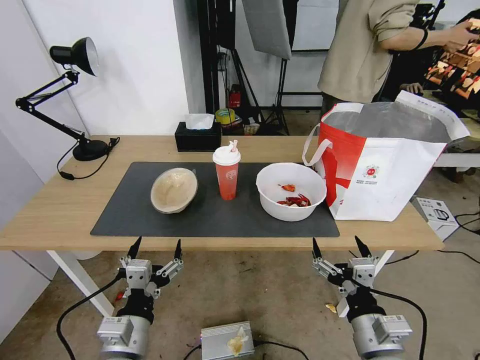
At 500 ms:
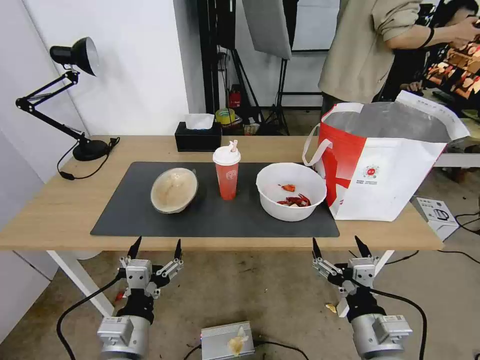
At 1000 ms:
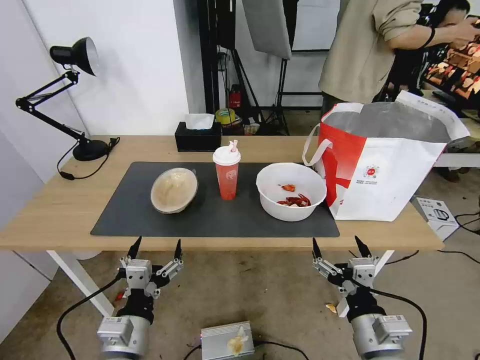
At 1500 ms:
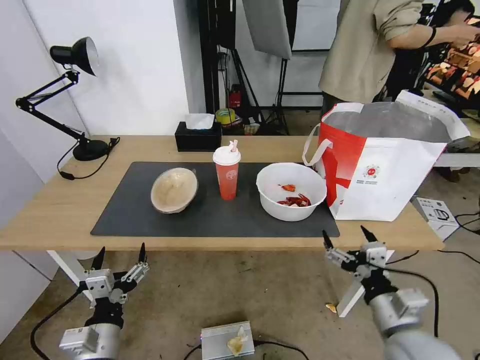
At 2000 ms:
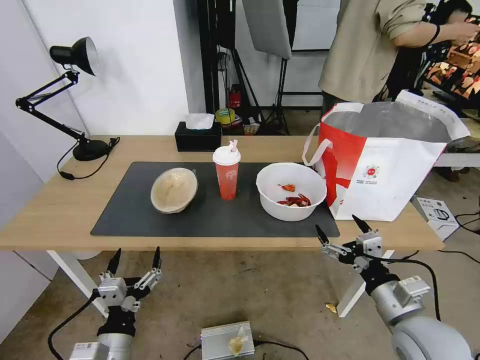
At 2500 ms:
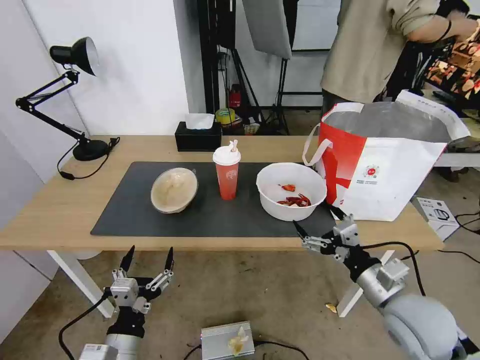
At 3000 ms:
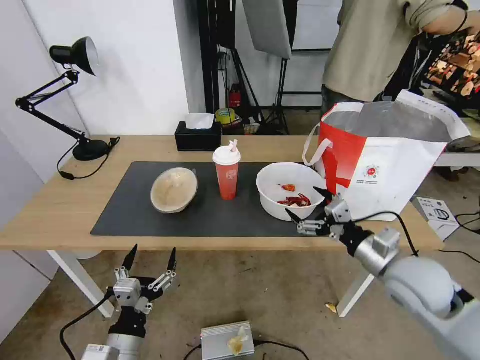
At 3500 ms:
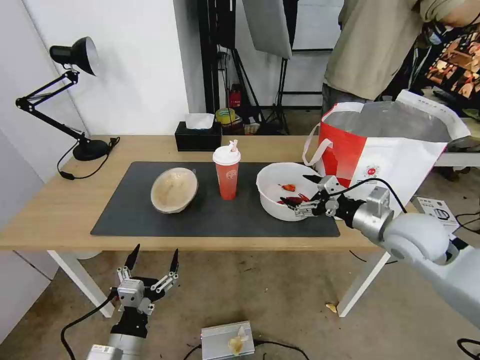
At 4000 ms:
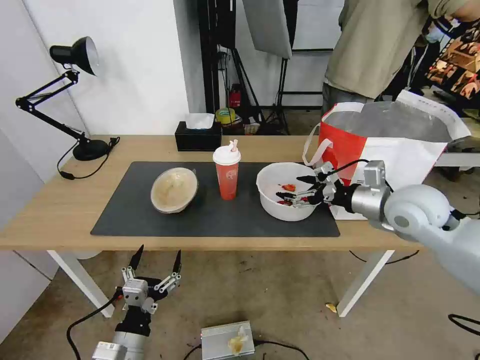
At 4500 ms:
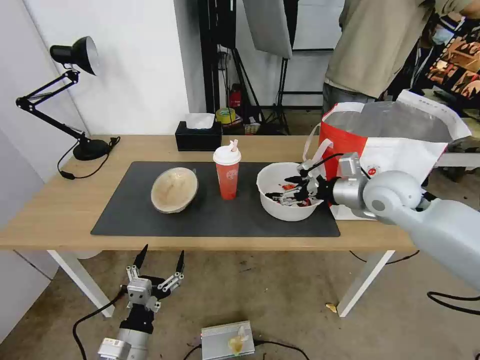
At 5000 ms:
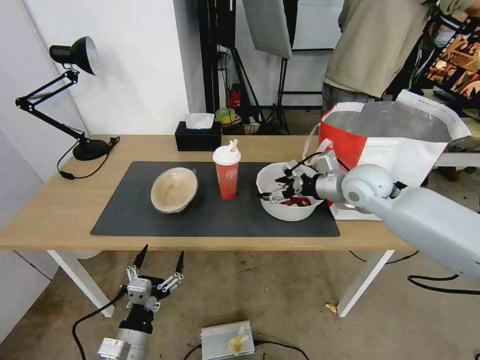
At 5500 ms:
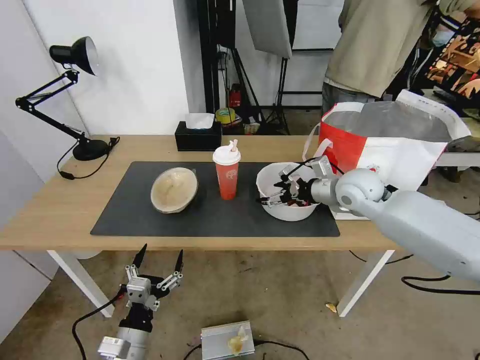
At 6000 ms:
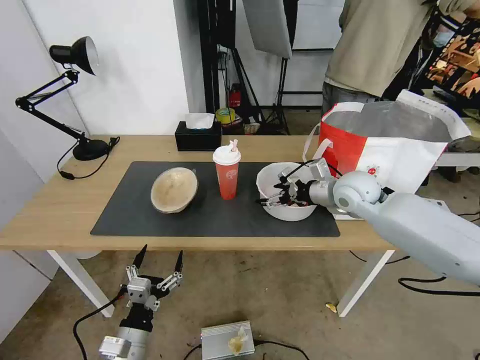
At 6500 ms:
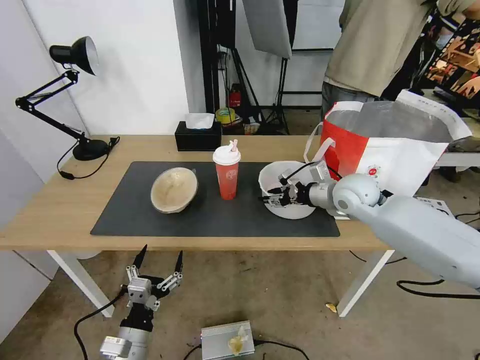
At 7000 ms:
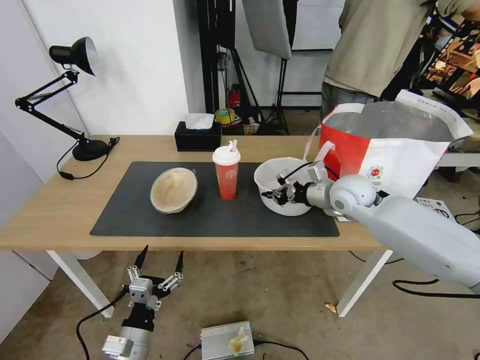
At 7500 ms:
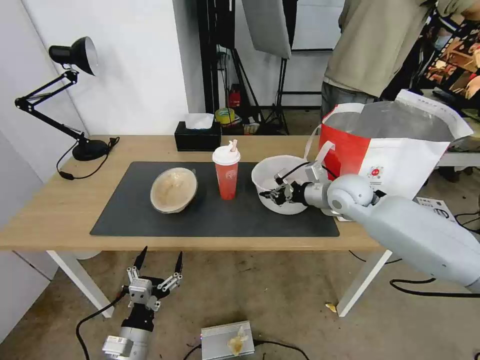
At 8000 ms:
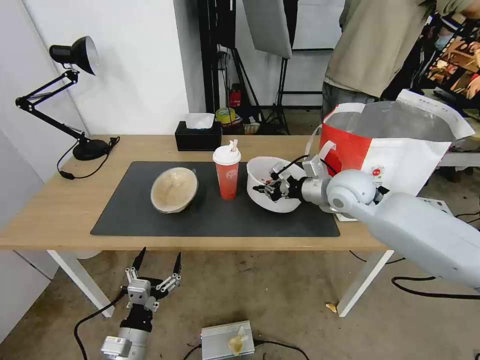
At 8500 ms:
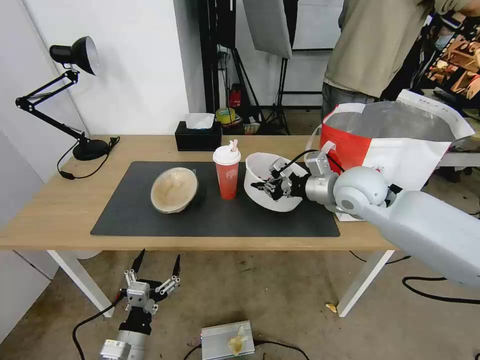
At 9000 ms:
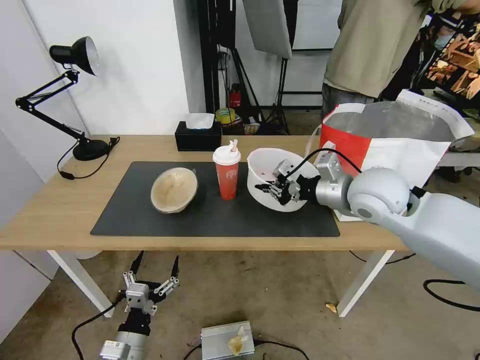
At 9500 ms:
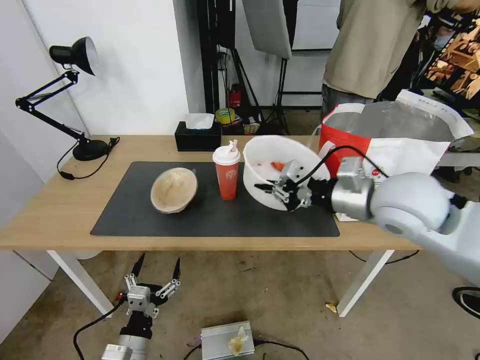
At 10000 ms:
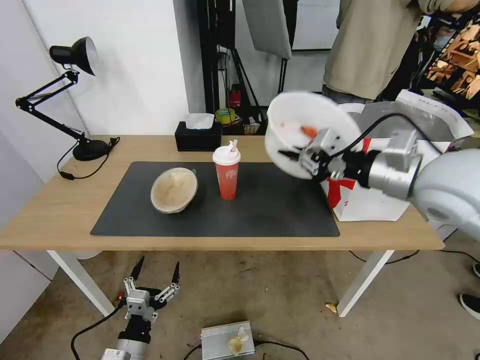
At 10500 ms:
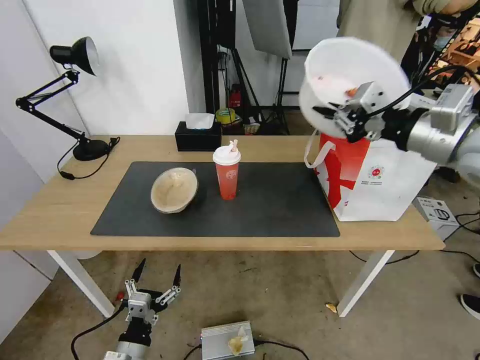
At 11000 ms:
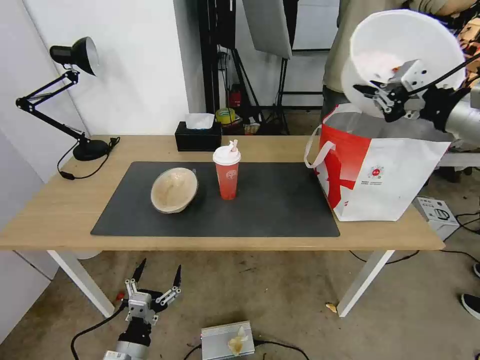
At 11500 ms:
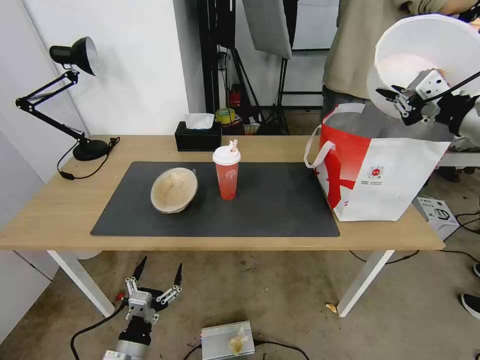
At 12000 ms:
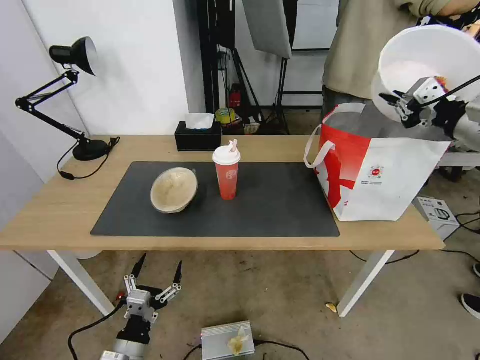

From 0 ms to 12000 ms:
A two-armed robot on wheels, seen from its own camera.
Task of the whole recording: Pick up the trash from the table and place it into the takeout bag.
From 2000 ms to 4000 ms: The right gripper travels forward and upward by some 25 cm.
From 4000 ms to 6000 ms: The right gripper shifts roughly 10 cm forward and to the left.
From 6000 ms to 8000 ms: The right gripper closes its fingers.
From 8000 ms to 10000 ms: The right gripper is displaced upward and backward by approximately 20 cm.
From 10000 ms to 12000 ms: The right gripper shifts roughly 15 cm to the right.

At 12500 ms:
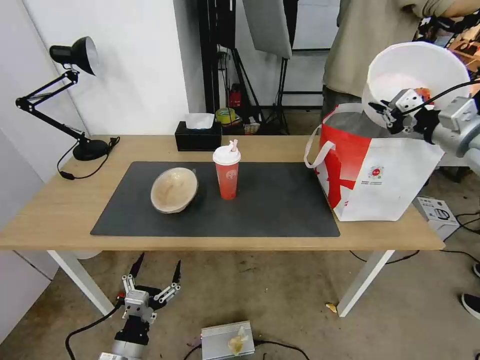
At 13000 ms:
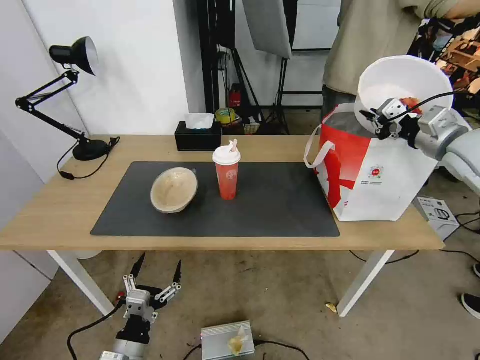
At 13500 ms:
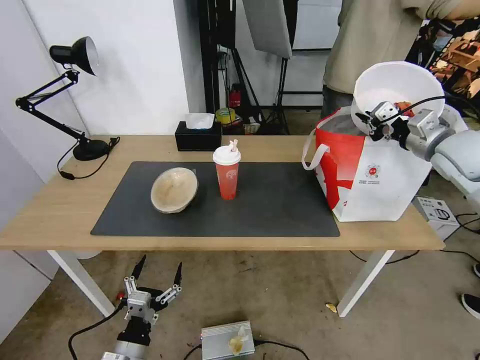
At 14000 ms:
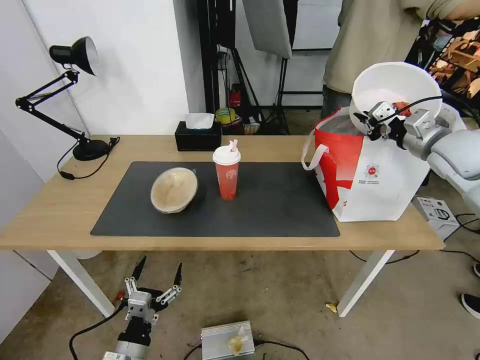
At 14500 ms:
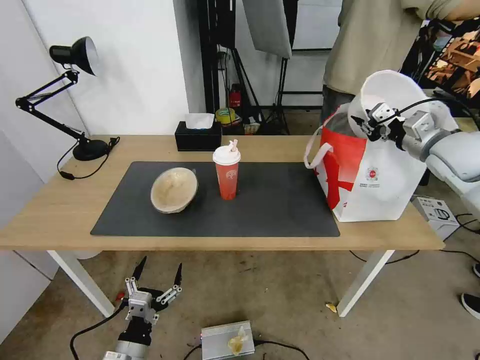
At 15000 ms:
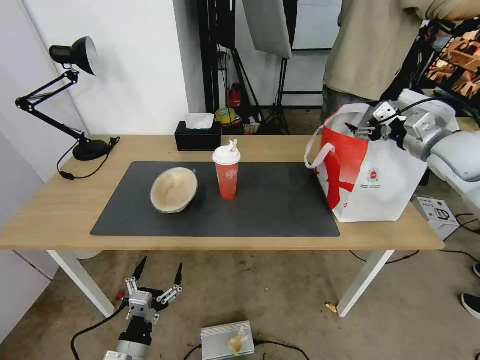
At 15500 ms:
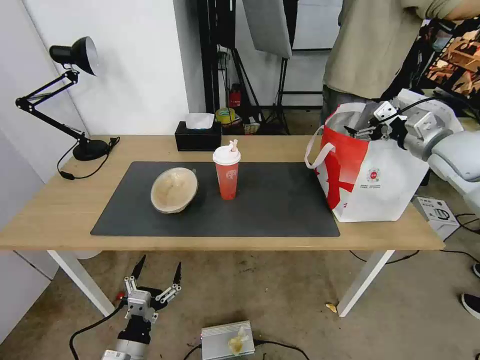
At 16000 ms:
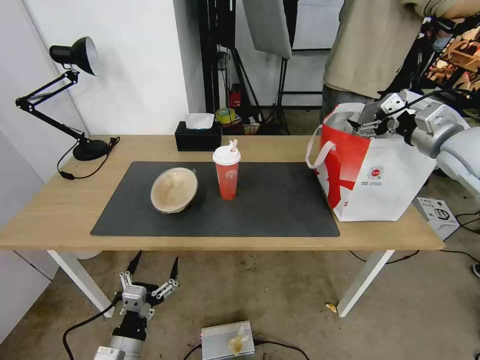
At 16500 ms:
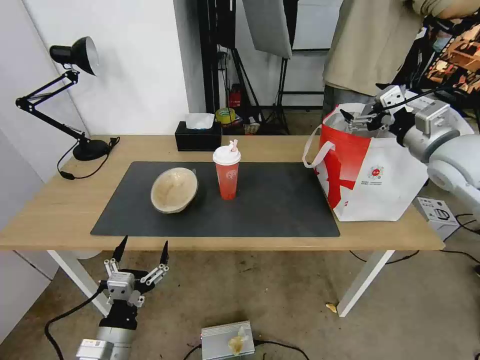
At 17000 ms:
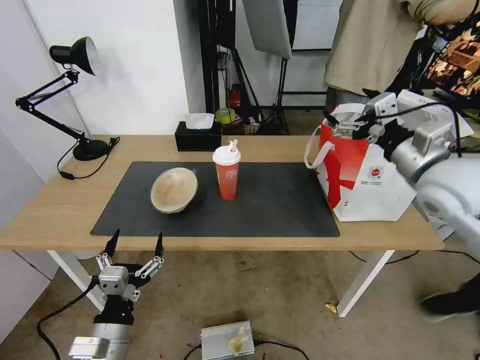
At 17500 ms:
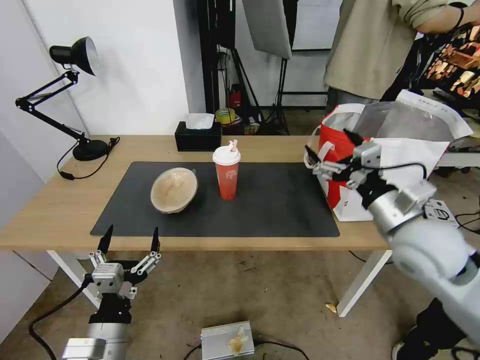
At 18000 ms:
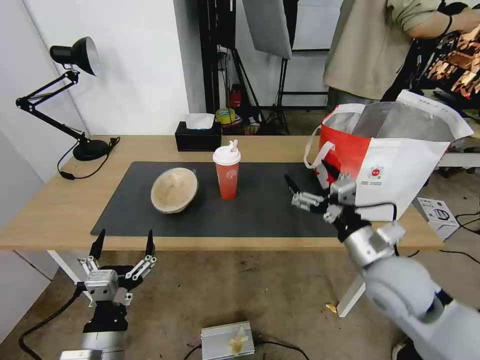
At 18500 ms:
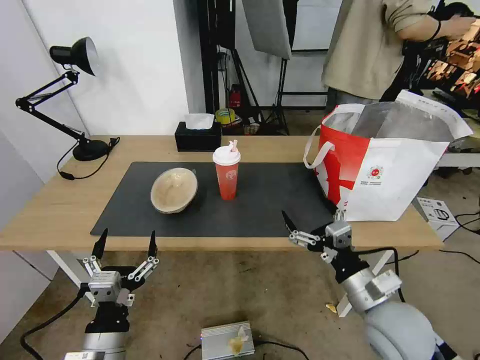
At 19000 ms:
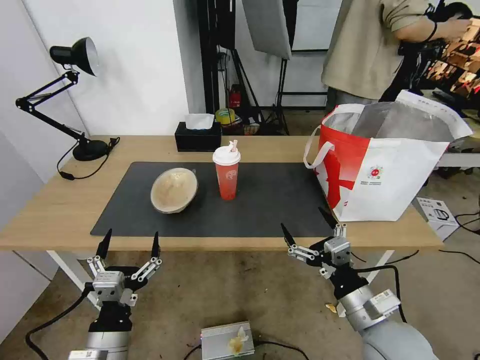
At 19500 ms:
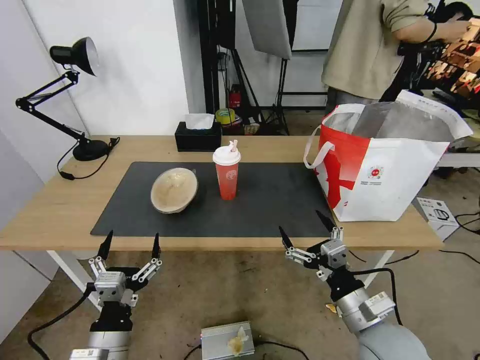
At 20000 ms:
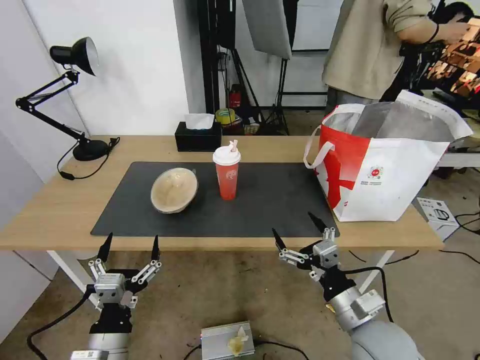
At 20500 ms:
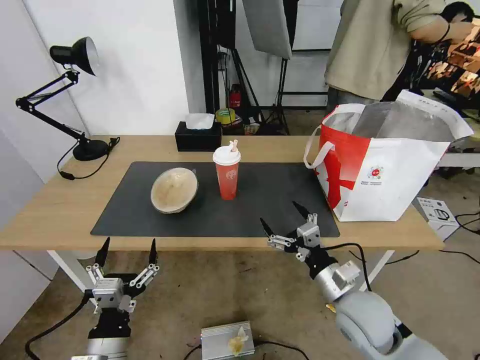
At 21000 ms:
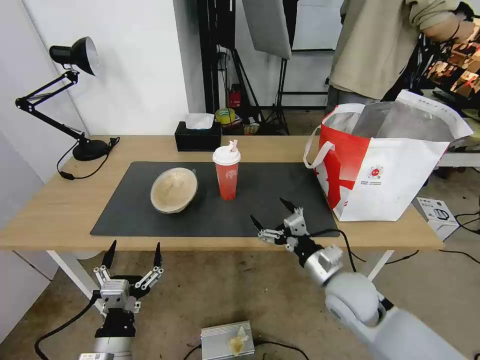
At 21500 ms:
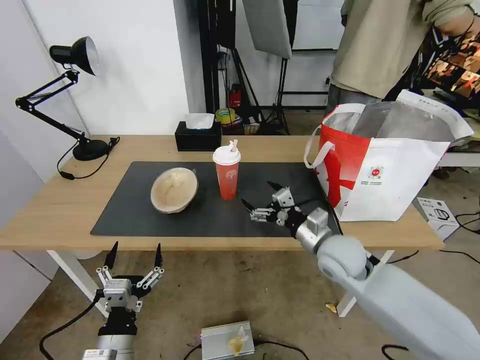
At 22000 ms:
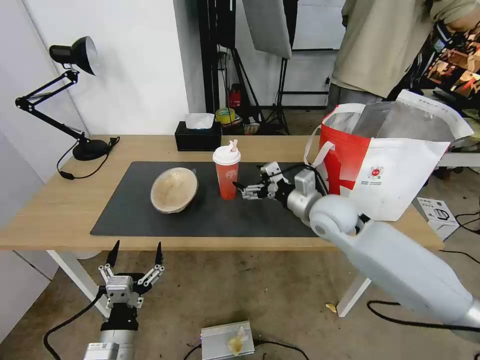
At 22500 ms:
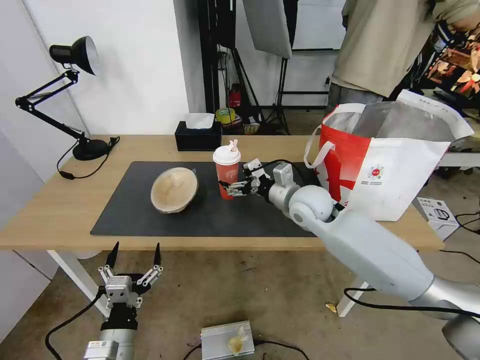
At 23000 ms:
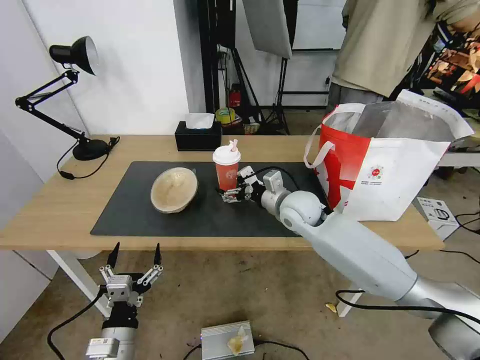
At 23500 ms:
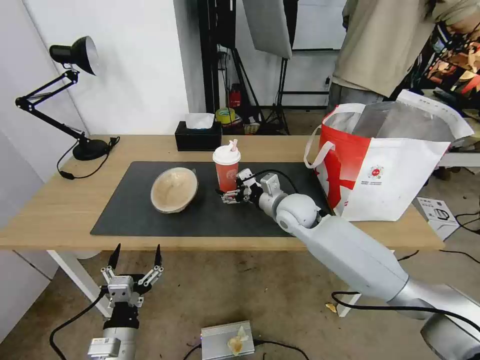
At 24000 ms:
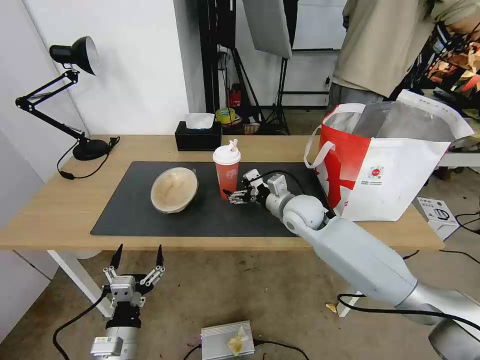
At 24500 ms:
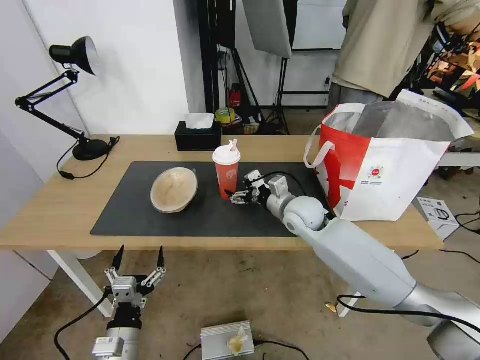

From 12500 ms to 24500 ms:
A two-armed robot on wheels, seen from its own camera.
Task of the whole recording: Pick up the trash from the table and place it into the takeout bag.
From 12500 ms to 14500 ms: The right gripper goes about 5 cm forward and downward.
From 14500 ms to 16500 ms: The right gripper shifts approximately 5 cm backward, and opens, while the left gripper goes approximately 5 cm upward.
From 16500 ms to 18500 ms: The right gripper moves backward, downward and to the left, some 30 cm.
From 18500 ms to 20500 ms: The right gripper moves approximately 5 cm.
From 20500 ms to 22500 ms: The right gripper moves forward, some 20 cm. Meanwhile the left gripper moves some 5 cm.
From 22500 ms to 24500 ms: The grippers stay close to where they were, moving slightly.

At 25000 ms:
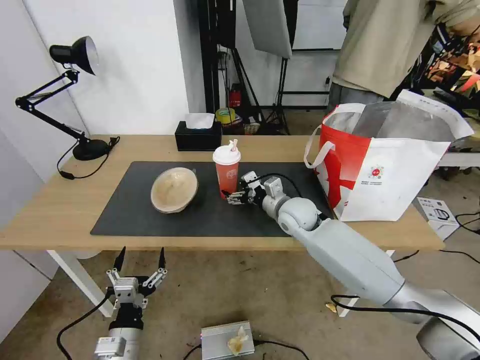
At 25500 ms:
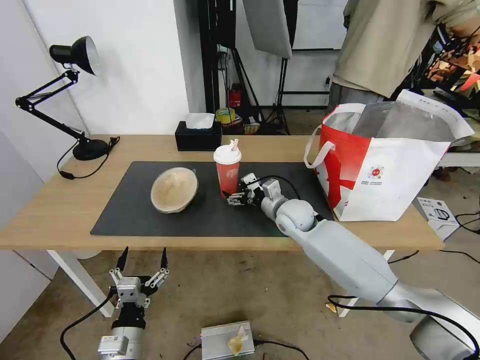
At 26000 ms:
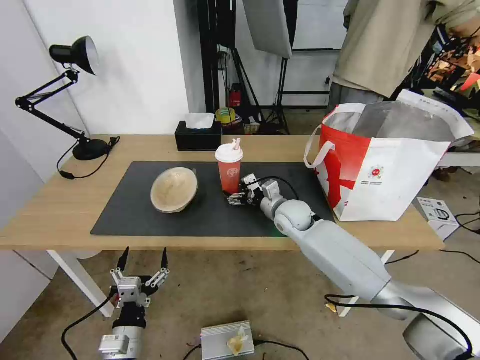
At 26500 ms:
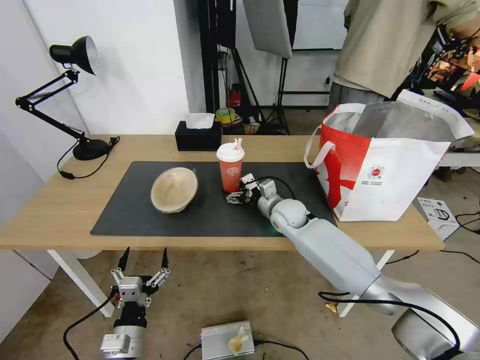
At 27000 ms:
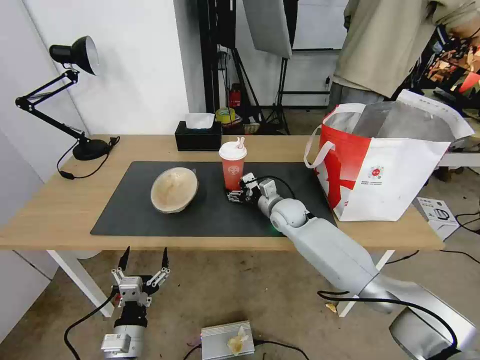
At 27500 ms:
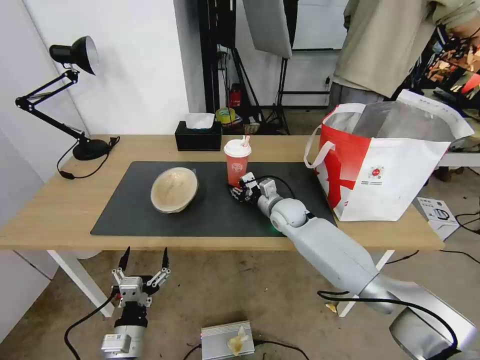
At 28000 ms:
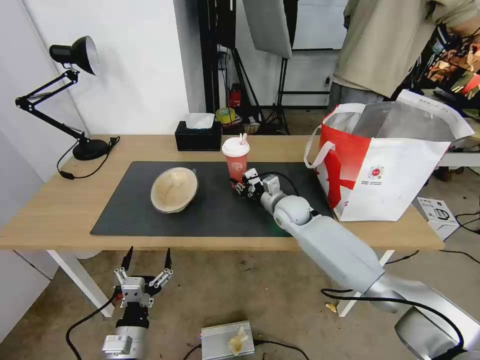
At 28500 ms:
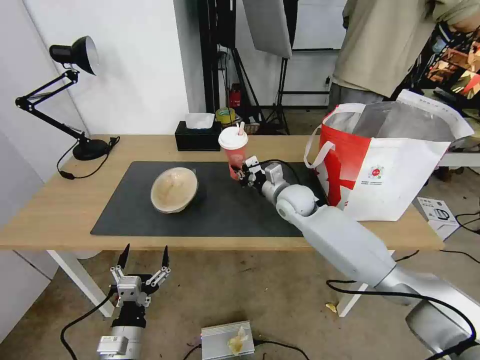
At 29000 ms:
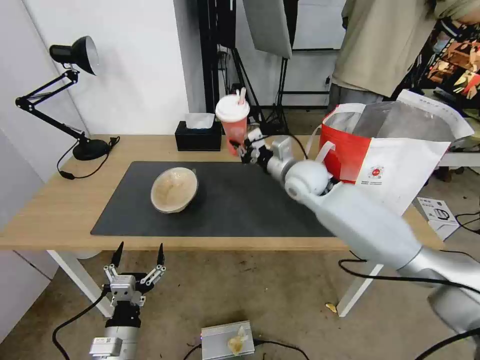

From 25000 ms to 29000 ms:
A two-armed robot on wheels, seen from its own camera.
Task of the whole recording: Pick up the trash from the table and place it into the takeout bag.
From 25000 ms to 27000 ms: The right gripper moves roughly 5 cm.
From 27000 ms to 29000 ms: The right gripper shifts some 15 cm upward, and closes up.
